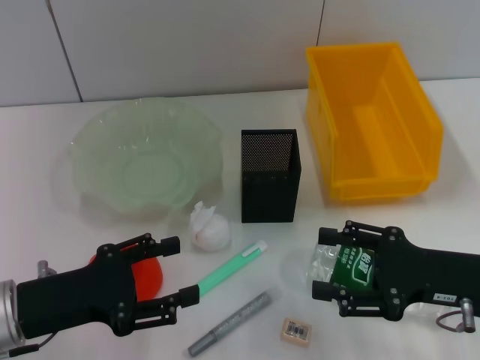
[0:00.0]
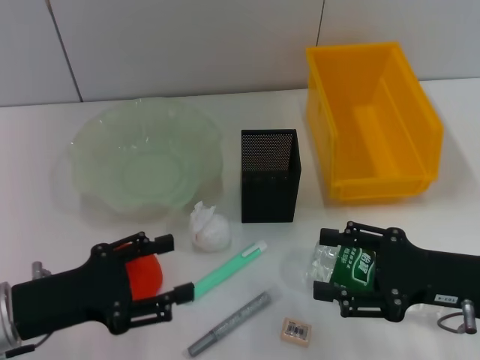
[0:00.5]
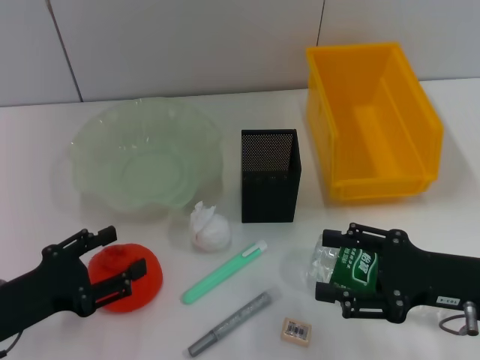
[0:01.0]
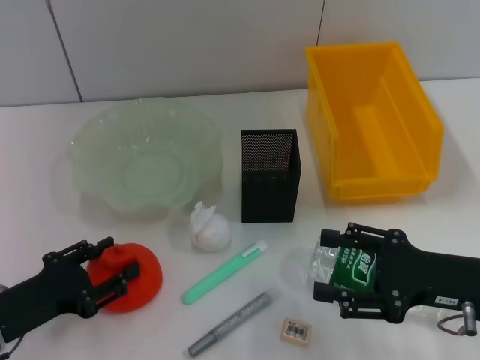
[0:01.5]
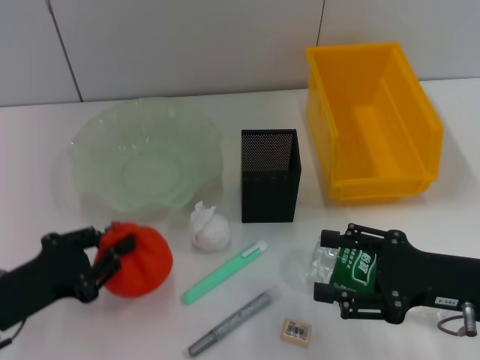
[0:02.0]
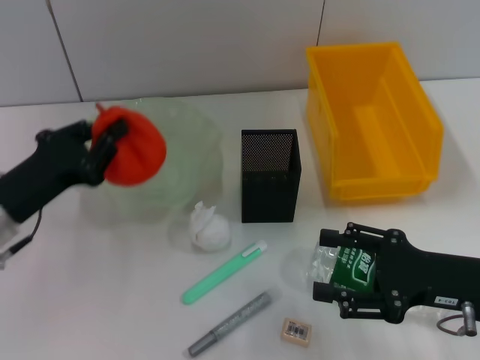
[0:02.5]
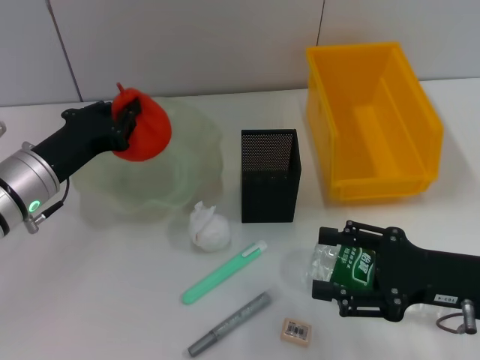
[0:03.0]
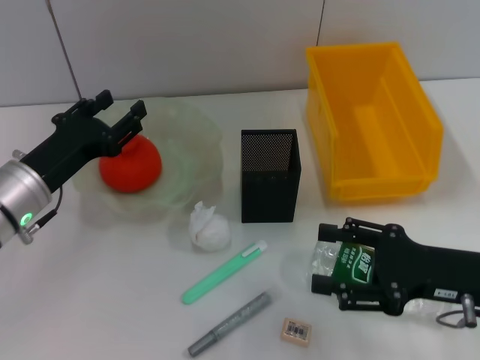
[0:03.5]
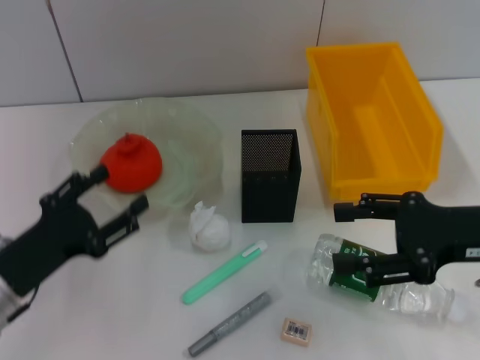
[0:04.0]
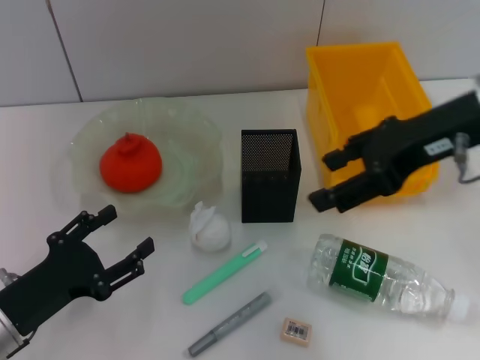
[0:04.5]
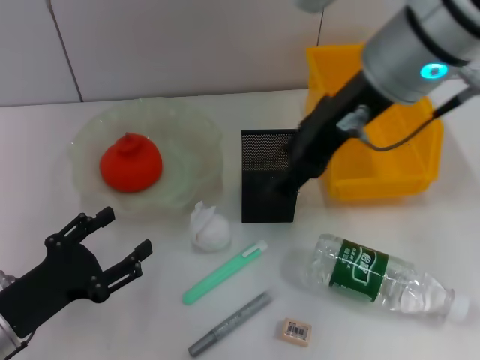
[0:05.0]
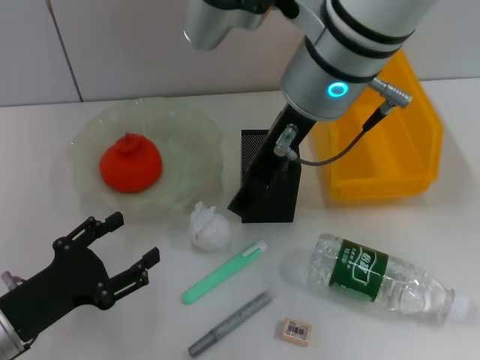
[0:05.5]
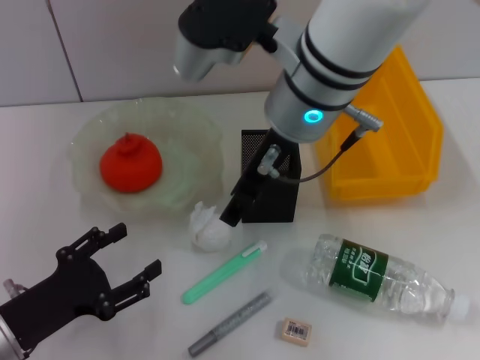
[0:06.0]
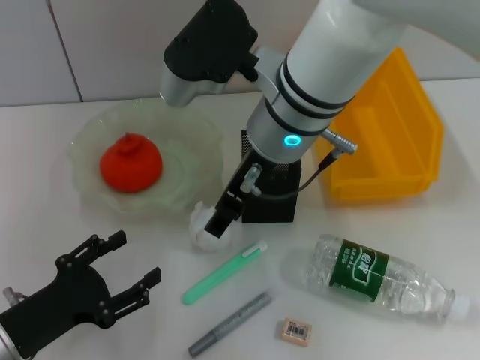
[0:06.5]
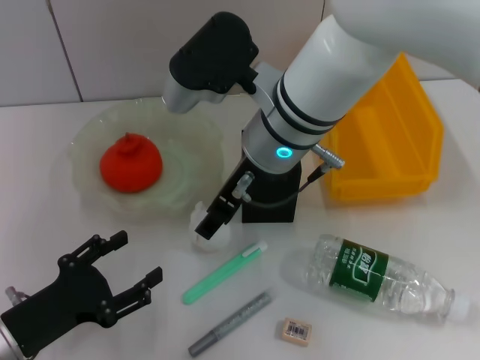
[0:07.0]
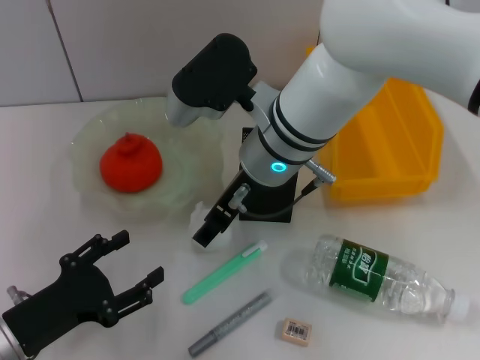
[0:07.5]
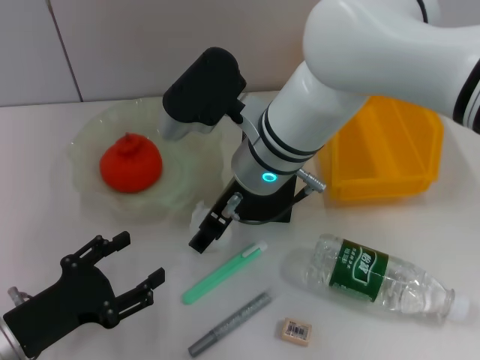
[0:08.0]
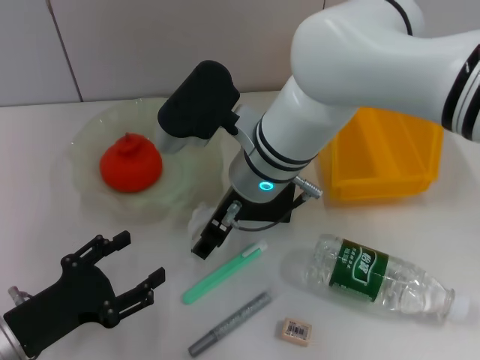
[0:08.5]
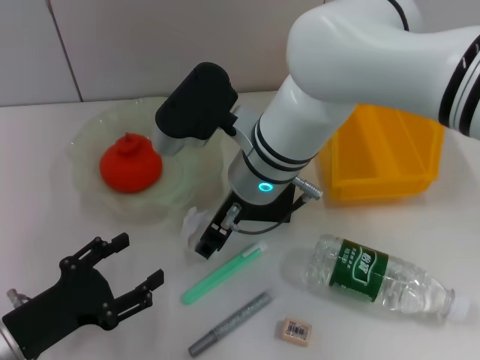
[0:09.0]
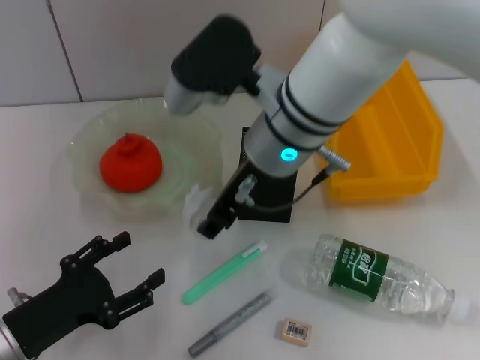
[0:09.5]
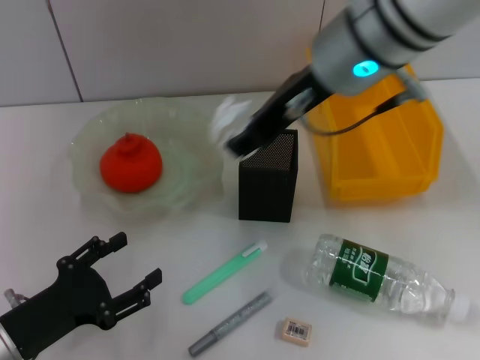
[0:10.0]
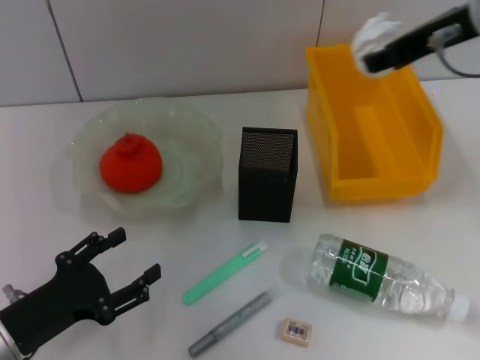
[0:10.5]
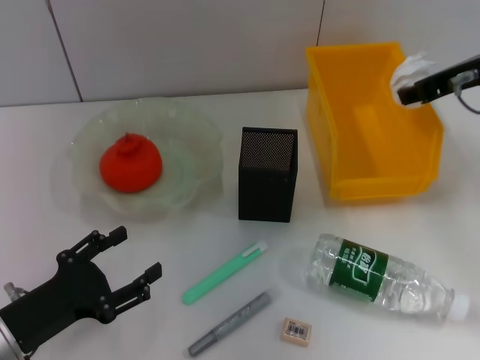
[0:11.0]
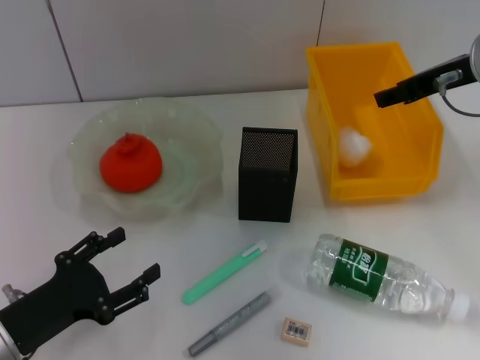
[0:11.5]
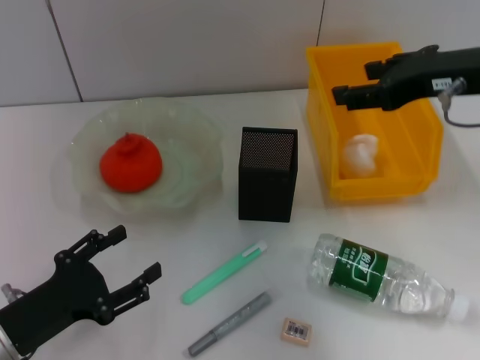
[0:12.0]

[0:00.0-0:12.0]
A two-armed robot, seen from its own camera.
Step, 0:00.0 to 0:01.5: Grab the orange with the left hand.
Step, 0:02.0 to 0:03.5: Place the orange into the fruit bowl with the left hand.
Step, 0:04.0 to 0:08.5: Grab the paper ball with the right hand.
Step, 0:09.0 to 0:11.5: Place the paper ball into the trash can with the right hand.
0:00.0 to 0:02.0: The left gripper closes up.
0:02.0 to 0:04.0: The left gripper travels forward and back again, roughly 10 cm each way, and opens up; the right gripper is displaced upward by roughly 10 cm.
0:04.0 to 0:06.0: The right gripper shifts approximately 25 cm to the left and forward.
0:06.0 to 0:08.0: The right gripper moves downward, some 10 cm.
0:08.0 to 0:10.0: The right gripper shifts some 15 cm upward and to the right, and closes up.
0:10.0 to 0:12.0: The right gripper shifts roughly 15 cm to the right.

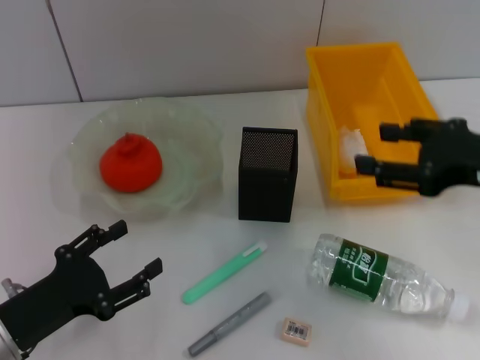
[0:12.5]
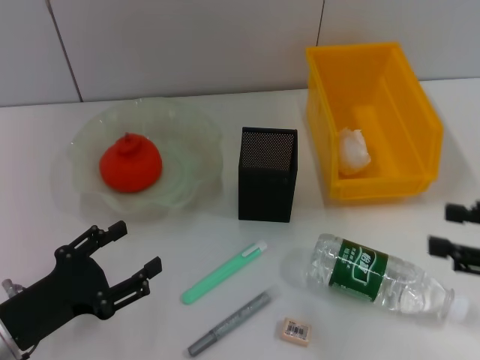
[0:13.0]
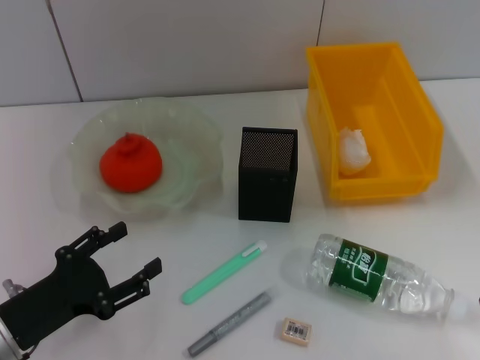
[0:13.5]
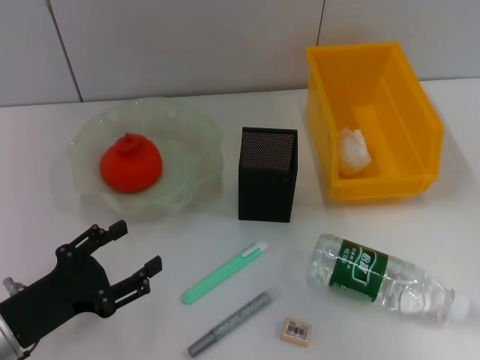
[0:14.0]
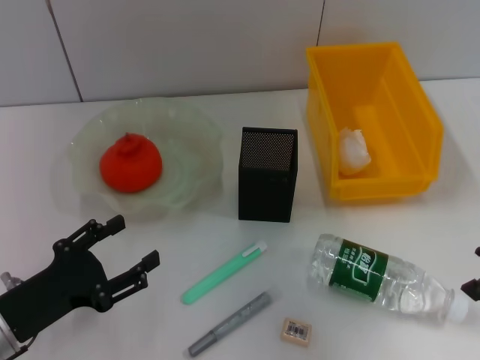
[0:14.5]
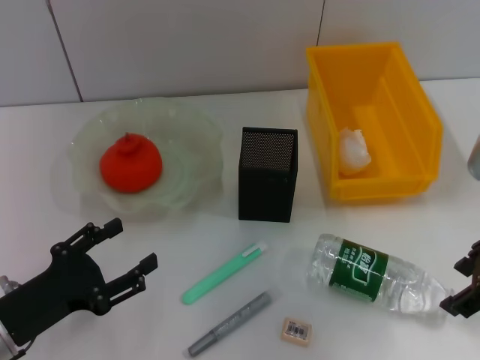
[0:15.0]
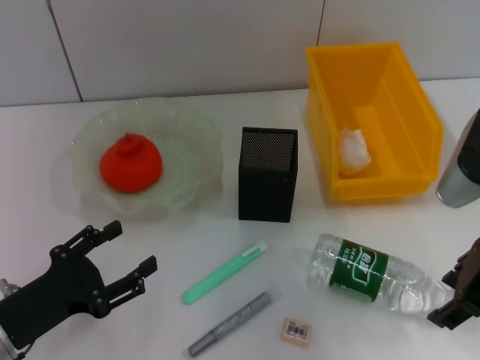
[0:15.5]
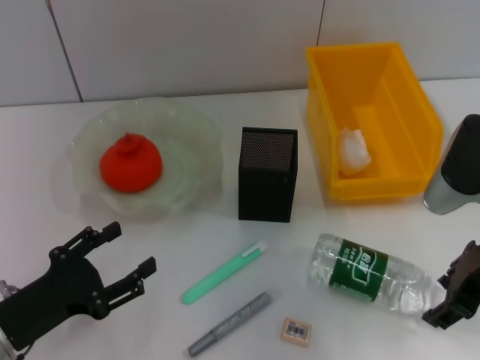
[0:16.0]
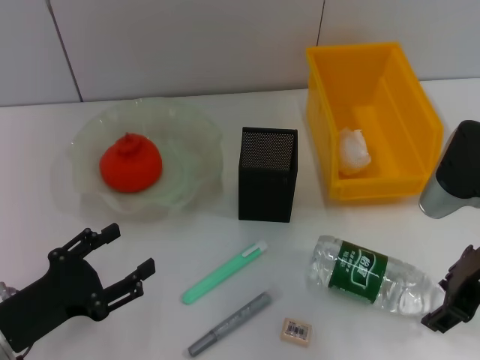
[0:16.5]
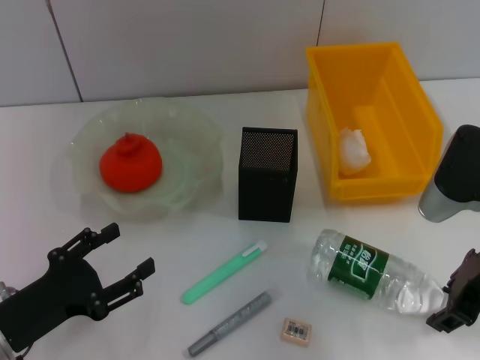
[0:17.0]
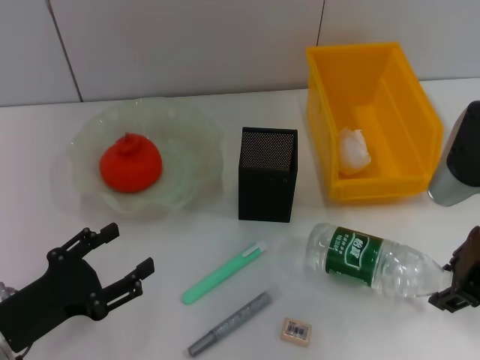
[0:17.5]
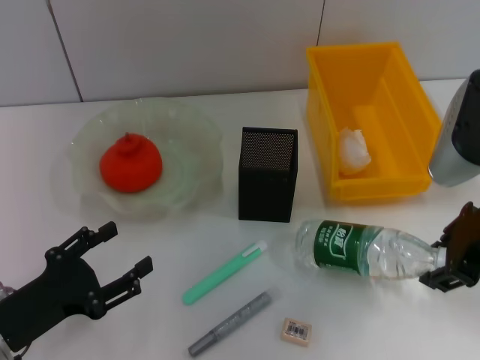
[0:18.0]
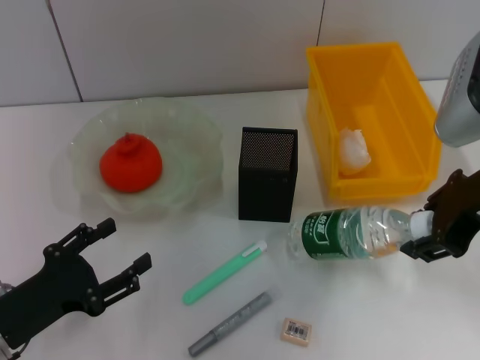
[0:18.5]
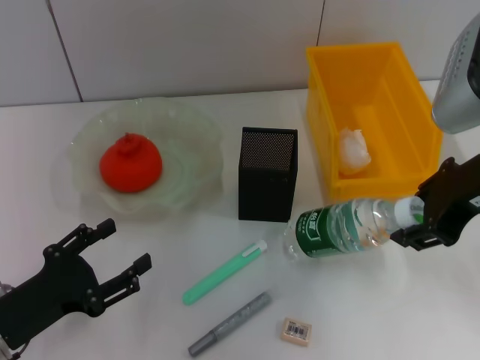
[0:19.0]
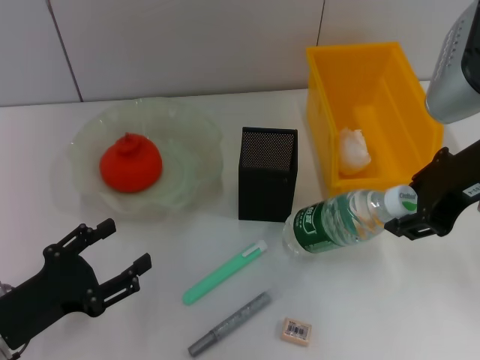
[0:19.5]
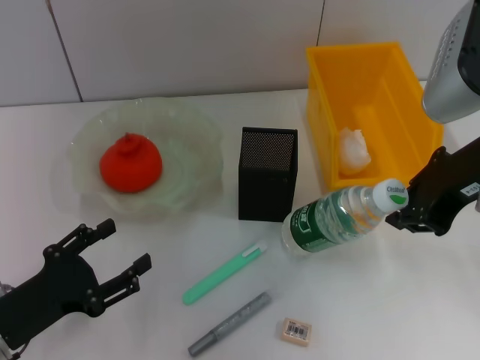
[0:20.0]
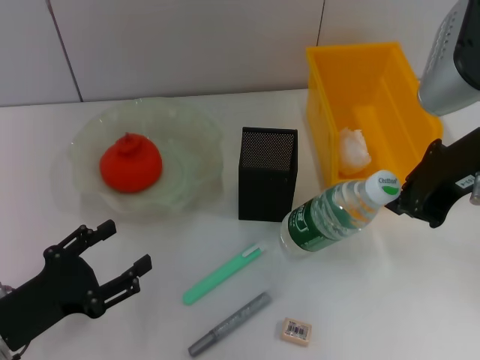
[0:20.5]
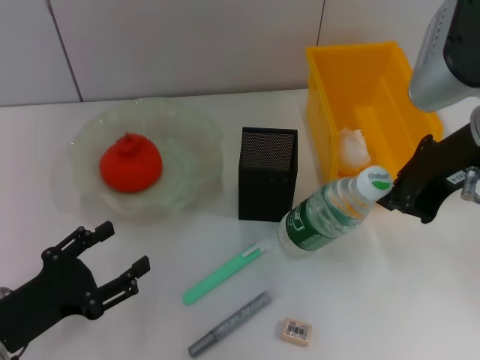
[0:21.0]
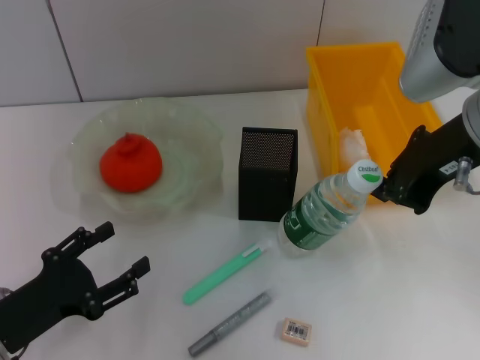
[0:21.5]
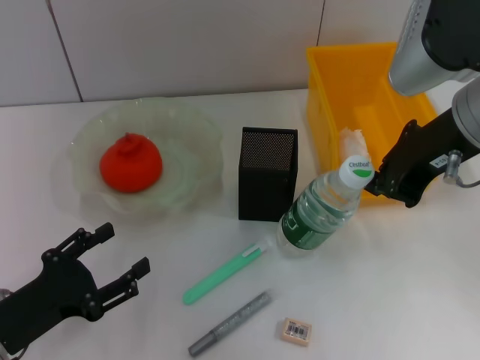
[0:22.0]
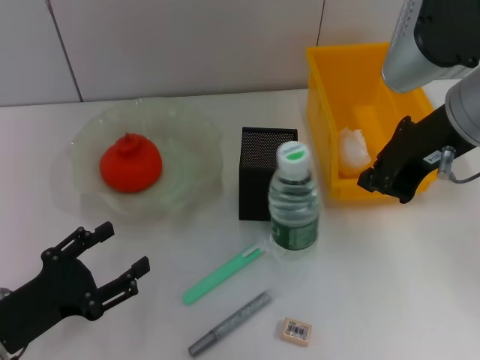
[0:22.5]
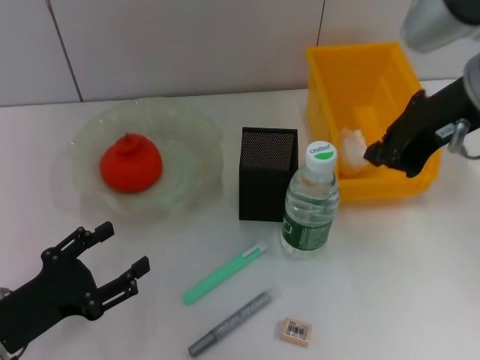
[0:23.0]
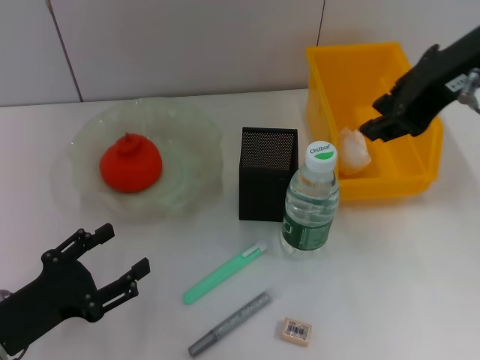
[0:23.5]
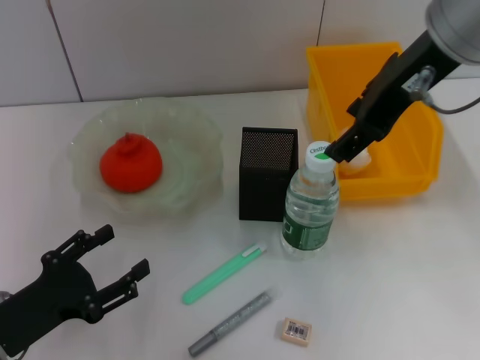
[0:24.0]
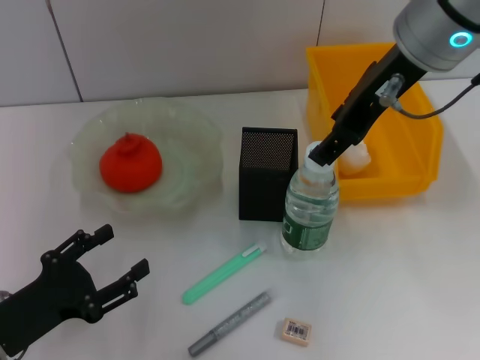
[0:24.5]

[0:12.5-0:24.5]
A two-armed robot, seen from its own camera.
Step, 0:12.5 to 0:17.0: Grab the water bottle with the right hand.
0:12.5 to 0:14.5: The right gripper reaches roughly 10 cm to the right, then returns.
0:14.5 to 0:16.5: The right gripper is displaced downward by roughly 5 cm.
0:16.5 to 0:18.5: The right gripper heads upward, covering some 10 cm.
0:18.5 to 0:20.5: The right gripper closes its fingers.
0:20.5 to 0:22.5: The grippers make only small movements.
0:22.5 to 0:24.5: The right gripper changes place by some 10 cm, and opens.

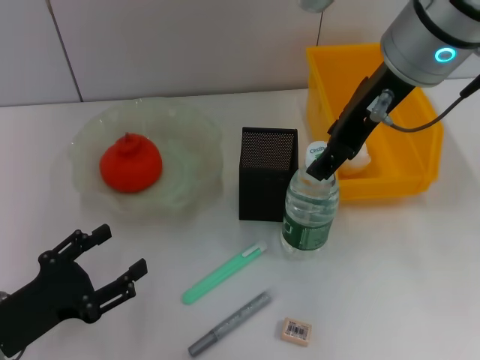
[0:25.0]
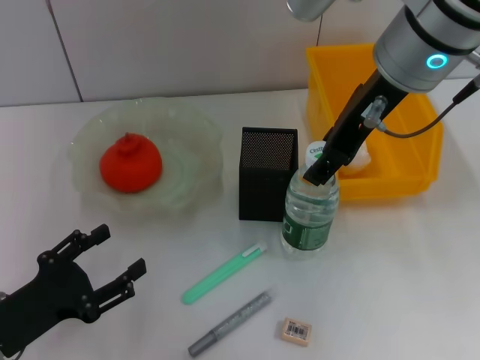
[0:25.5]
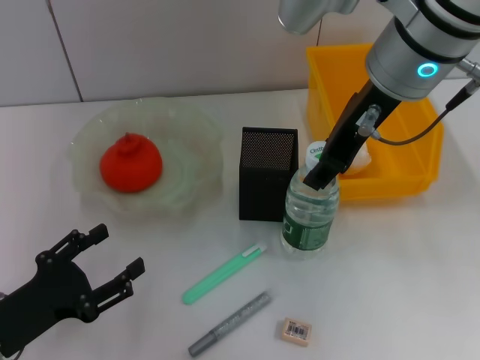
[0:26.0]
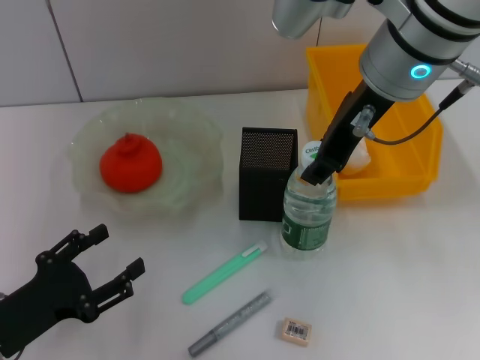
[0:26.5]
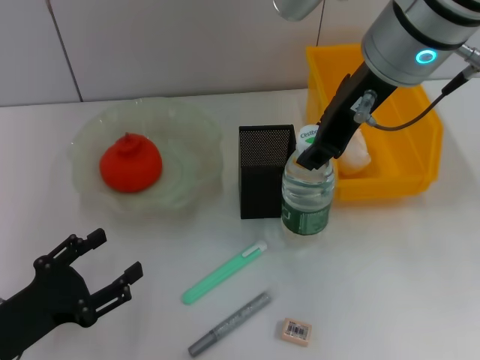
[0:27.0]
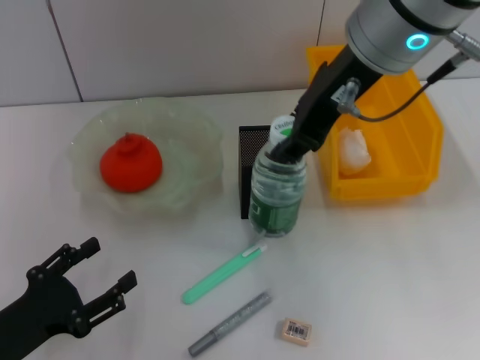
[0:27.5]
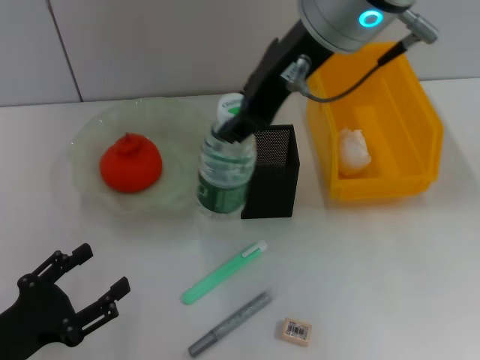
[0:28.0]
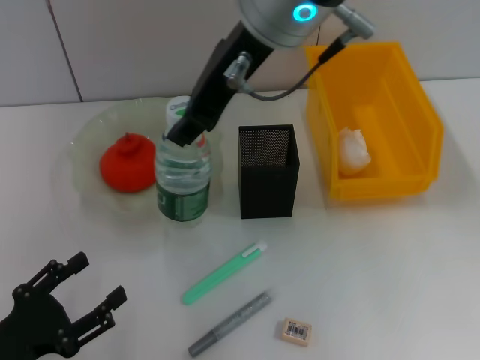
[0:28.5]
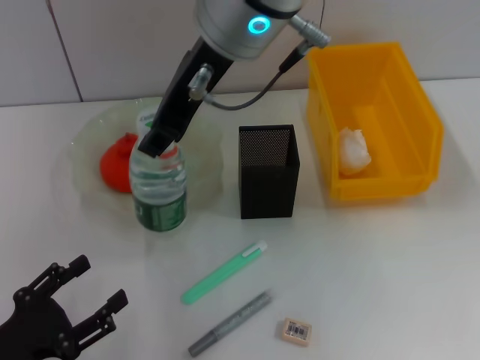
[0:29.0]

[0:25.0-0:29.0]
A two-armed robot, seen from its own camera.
0:25.0 to 0:27.0: The right gripper closes its fingers.
0:27.0 to 0:29.0: The right gripper heads to the left, covering approximately 10 cm.
